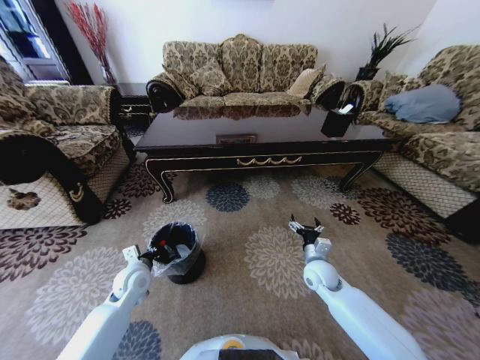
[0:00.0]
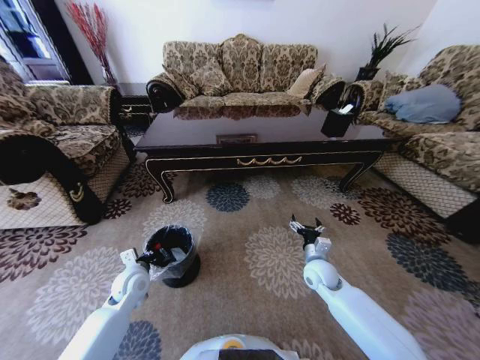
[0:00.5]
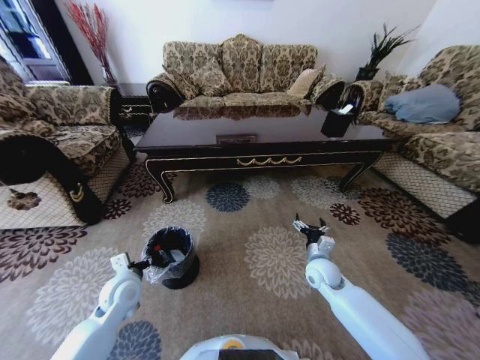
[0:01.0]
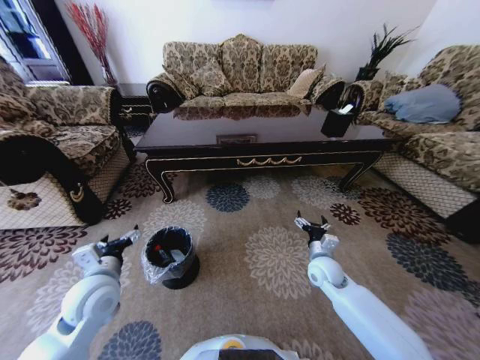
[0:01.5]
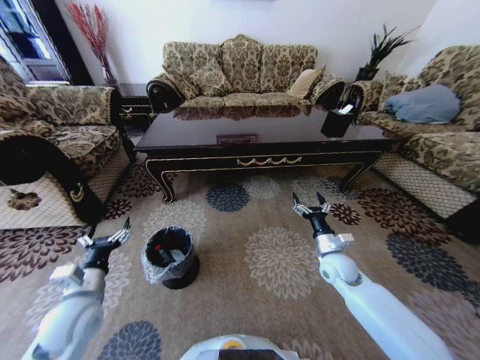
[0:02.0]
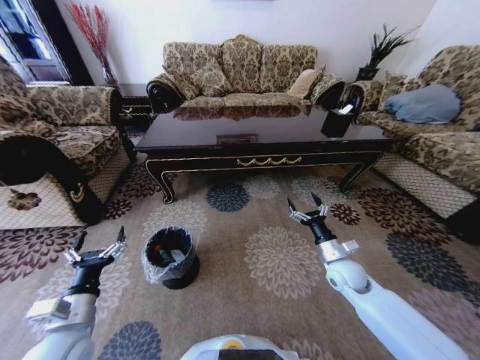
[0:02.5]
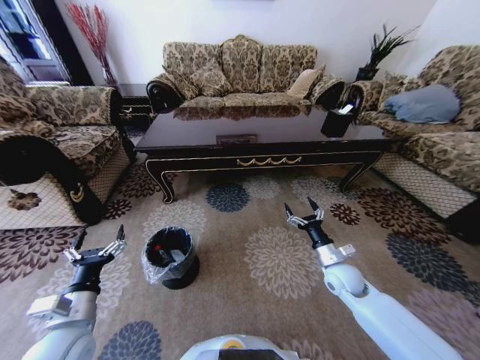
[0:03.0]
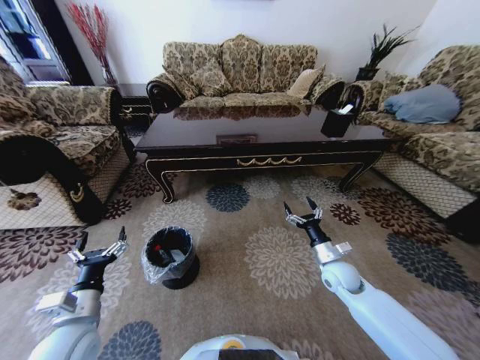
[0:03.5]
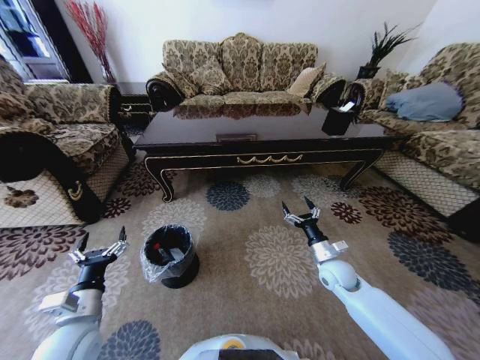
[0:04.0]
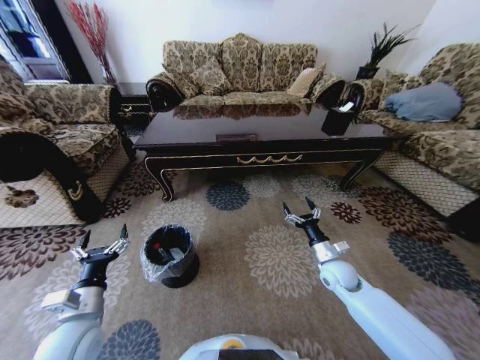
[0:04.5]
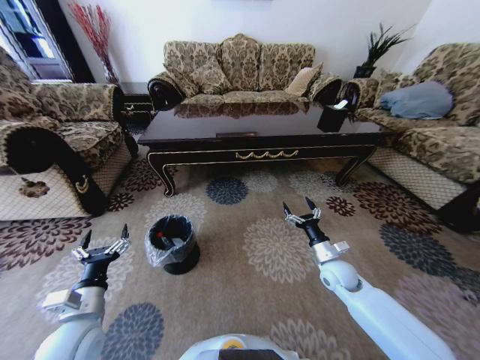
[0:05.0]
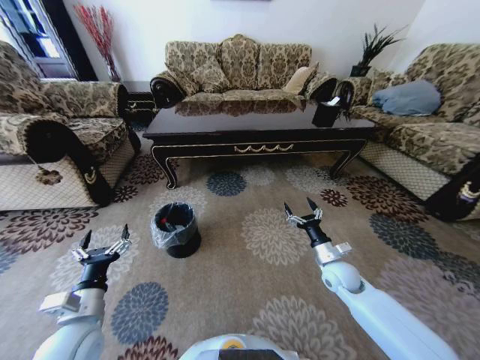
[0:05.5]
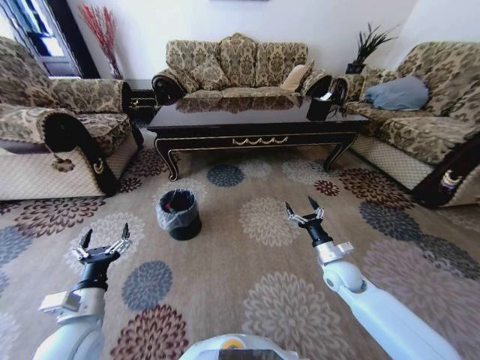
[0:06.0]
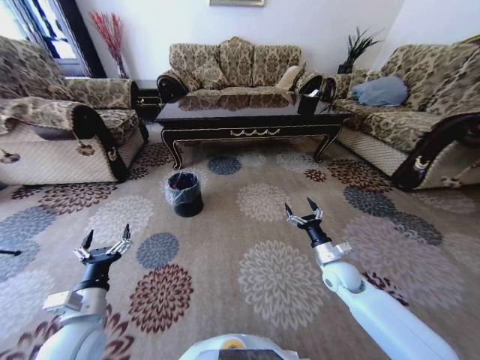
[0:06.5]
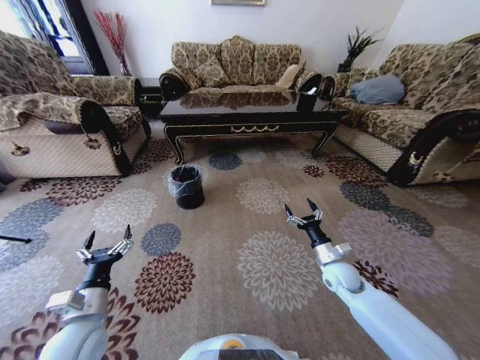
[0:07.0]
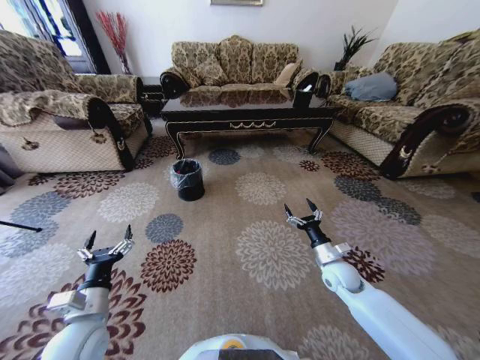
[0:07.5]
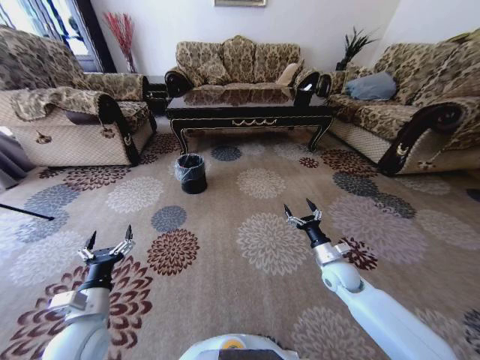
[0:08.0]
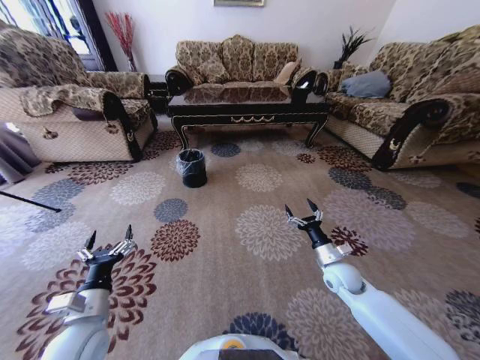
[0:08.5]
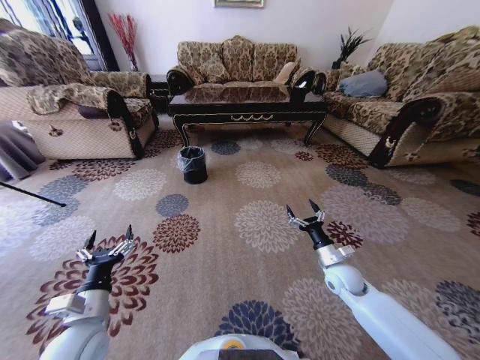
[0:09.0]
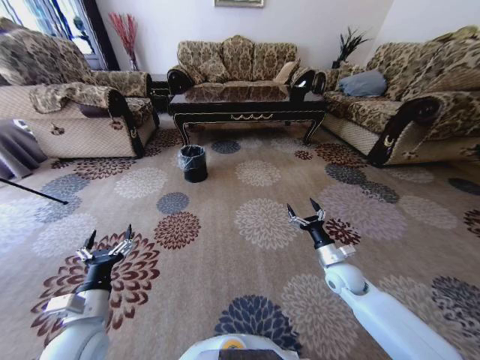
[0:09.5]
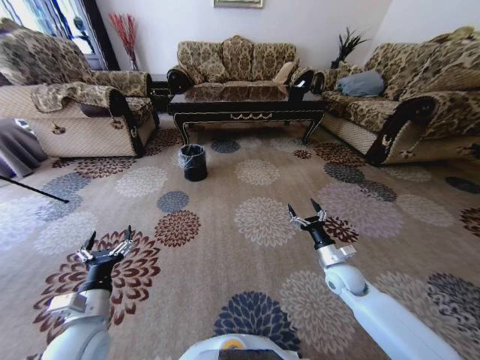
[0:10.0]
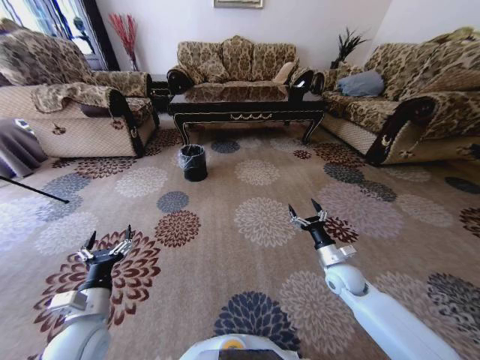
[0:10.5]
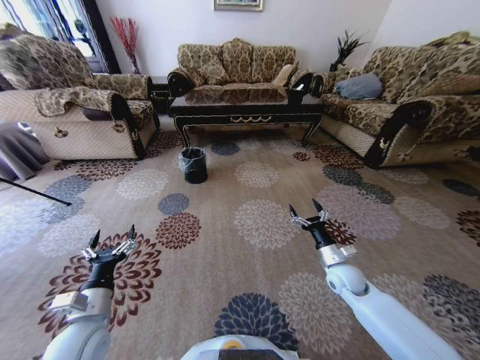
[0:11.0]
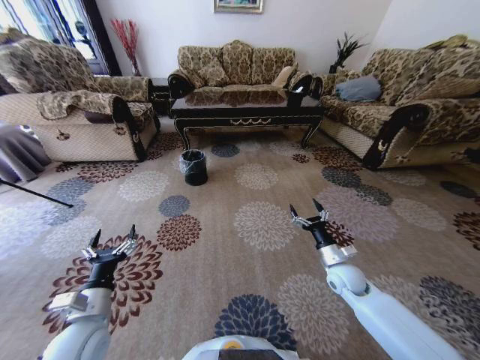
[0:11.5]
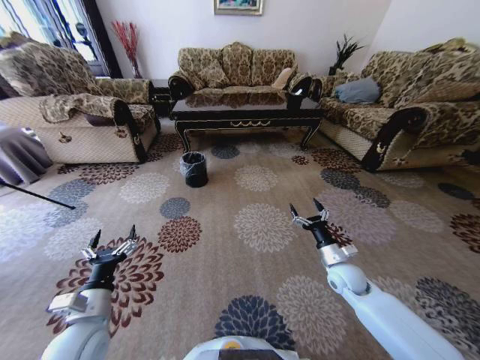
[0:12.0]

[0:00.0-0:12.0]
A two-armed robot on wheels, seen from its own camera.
Task of the whole recording: Move to the front of the table and pick up the trash from the floor, then place it into the trash bin.
0:00.0 to 0:02.0: The left gripper shifts about 15 cm backward, upward and to the left, and opens, while the right gripper shifts by roughly 5 cm.
0:02.0 to 0:04.0: The grippers make only small movements.

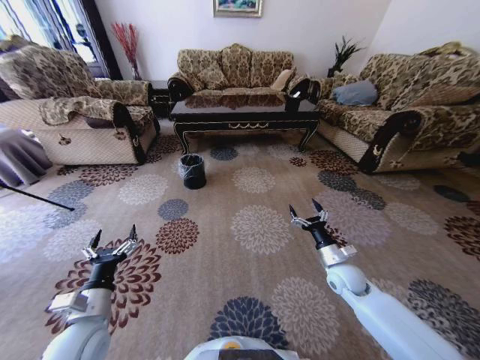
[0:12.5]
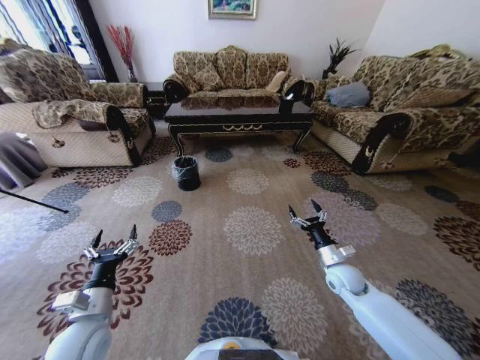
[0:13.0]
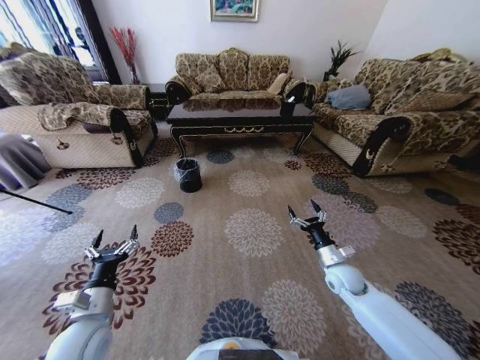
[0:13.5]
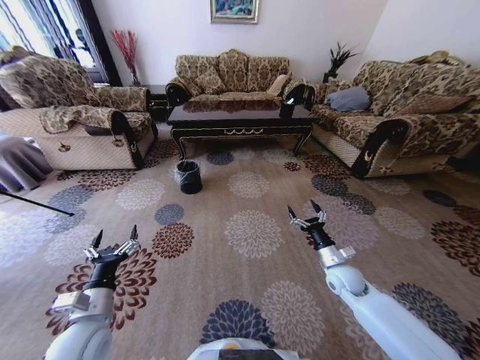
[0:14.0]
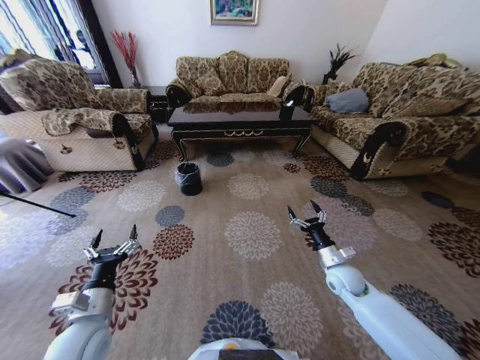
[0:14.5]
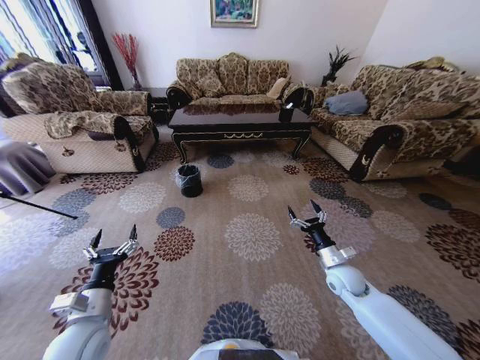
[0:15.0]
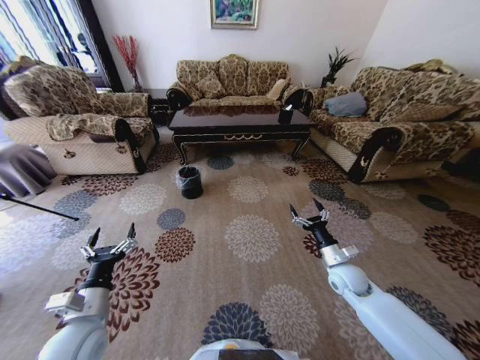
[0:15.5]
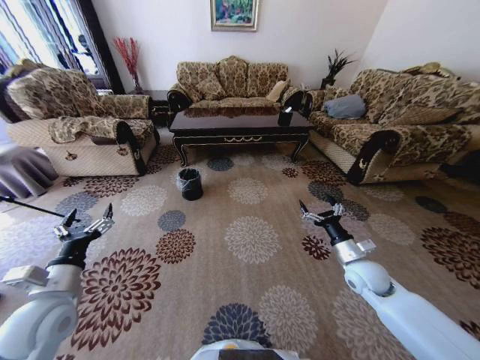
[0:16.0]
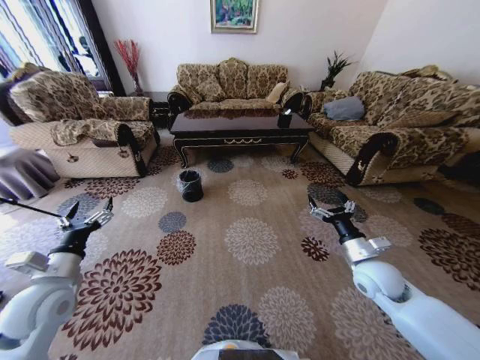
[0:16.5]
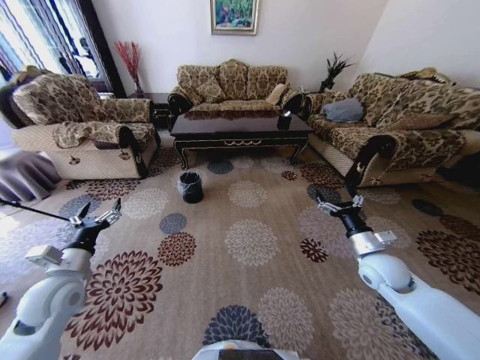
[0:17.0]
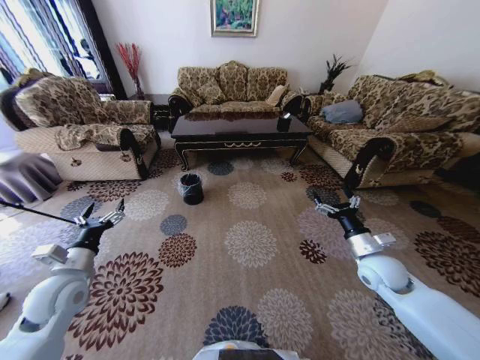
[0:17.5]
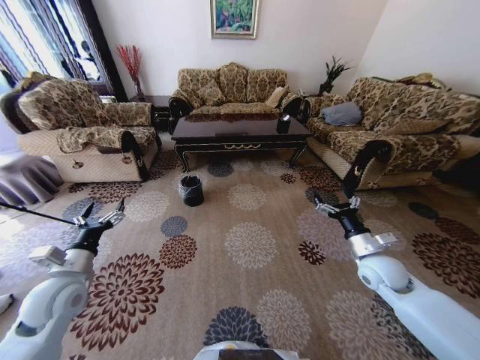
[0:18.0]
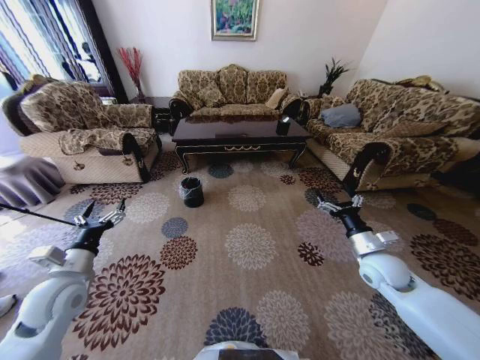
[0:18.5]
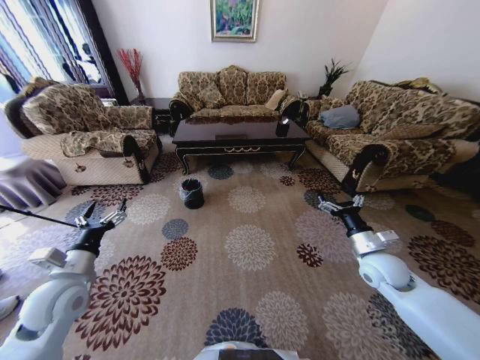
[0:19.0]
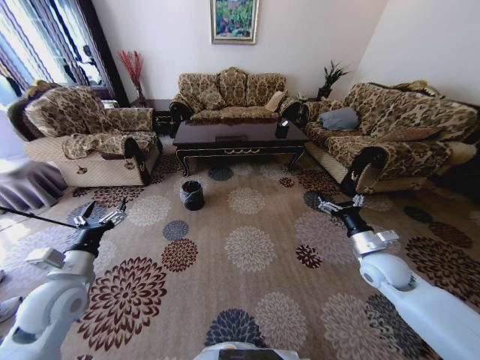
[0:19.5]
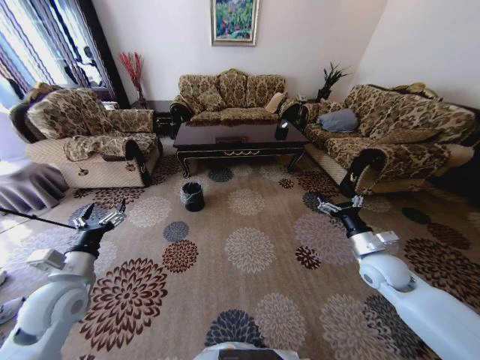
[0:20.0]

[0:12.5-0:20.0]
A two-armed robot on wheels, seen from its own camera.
Task of the whole recording: Move to the front of the table and pick up the trash from the floor, then place it into the trash bin.
0:14.5 to 0:16.5: The right gripper heads upward, covering roughly 10 cm. The left gripper goes about 10 cm to the left, upward and forward.

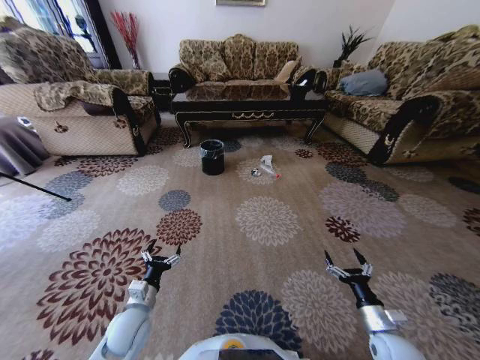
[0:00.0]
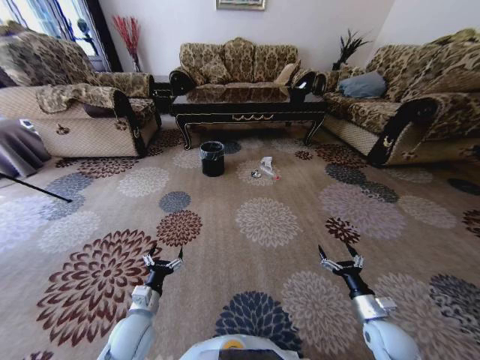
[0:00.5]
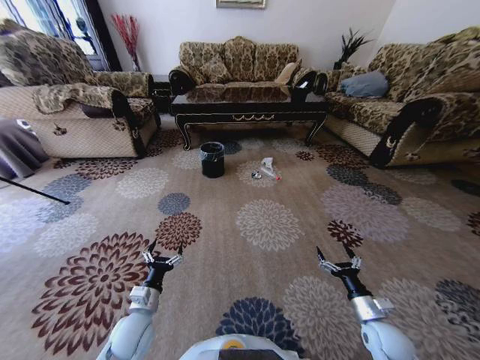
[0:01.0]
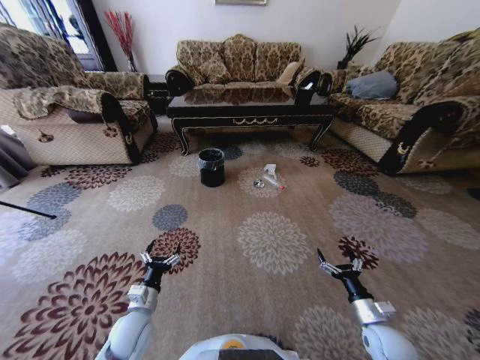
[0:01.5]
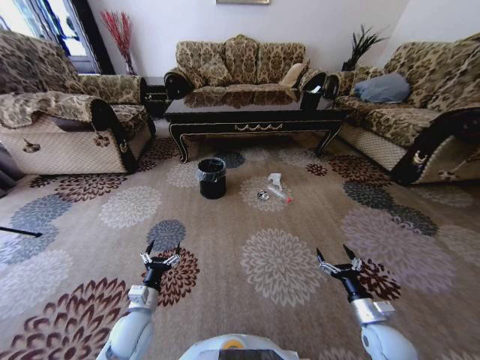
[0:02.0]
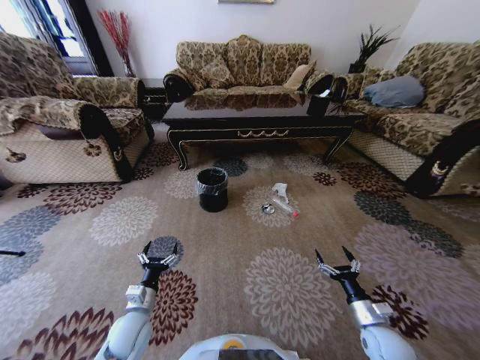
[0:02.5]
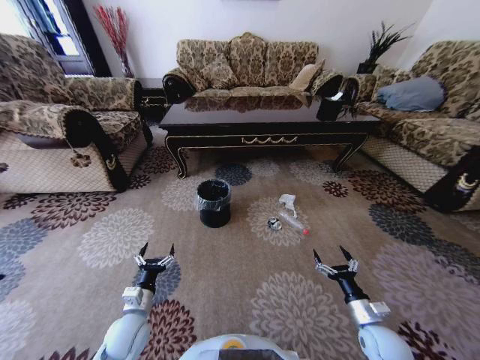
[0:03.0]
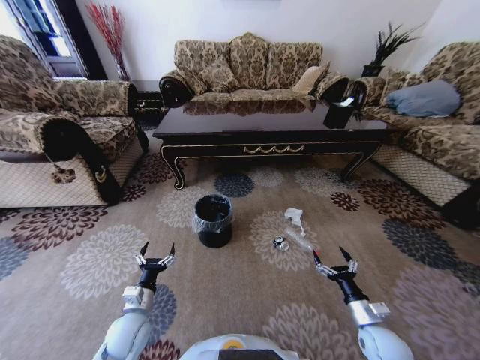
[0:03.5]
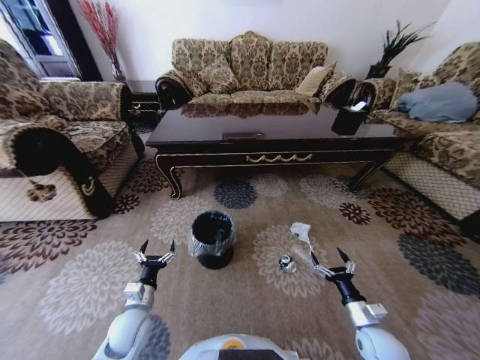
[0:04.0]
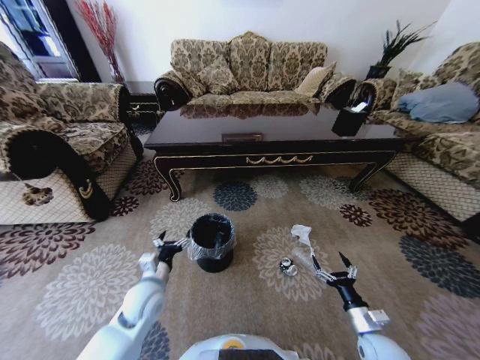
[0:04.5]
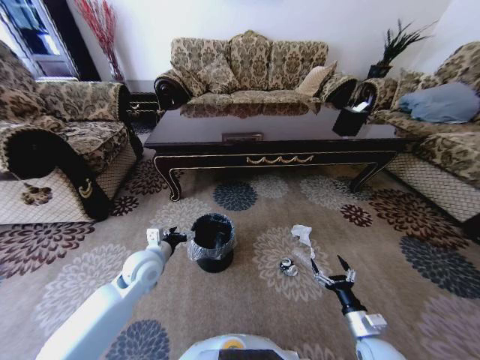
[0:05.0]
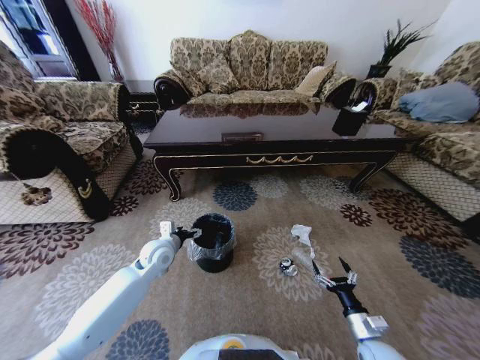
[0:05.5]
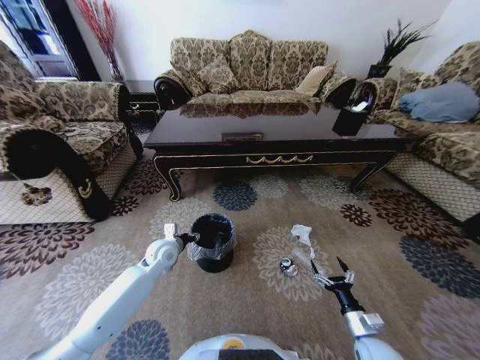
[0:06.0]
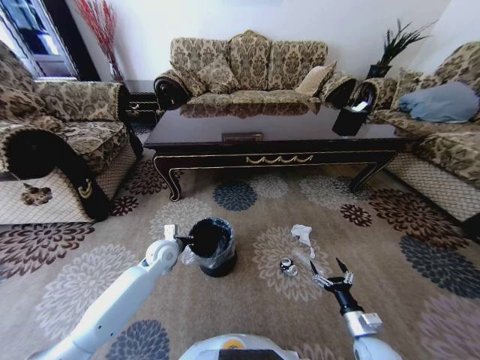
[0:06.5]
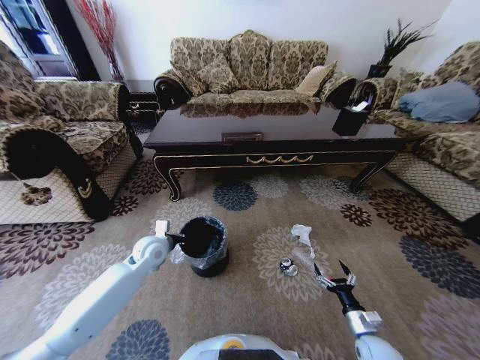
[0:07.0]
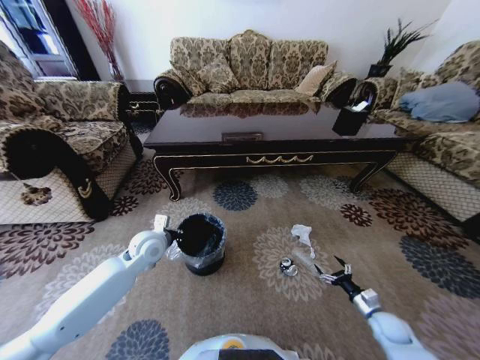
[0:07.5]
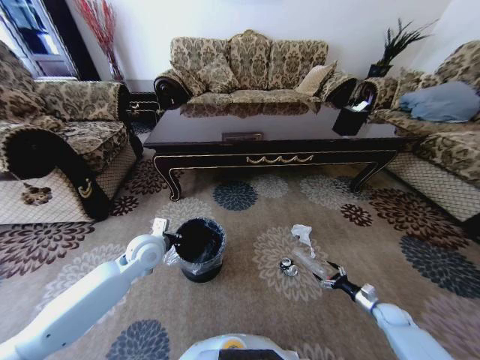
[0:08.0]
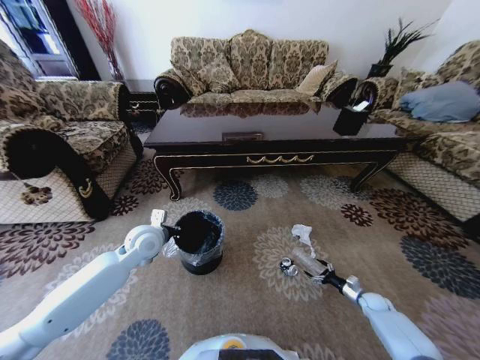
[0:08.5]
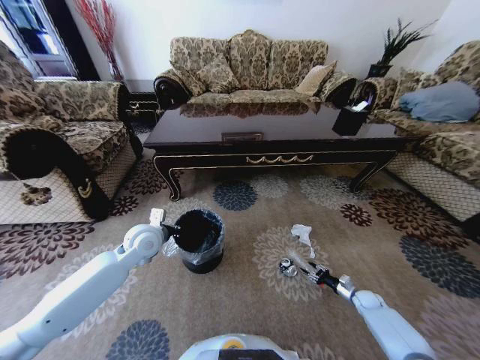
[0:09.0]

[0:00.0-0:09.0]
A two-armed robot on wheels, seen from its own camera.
Task of the whole recording: Move to the front of the table and pick up the trash from the floor, then place it into the trash bin.
0:02.0 to 0:04.5: The left gripper moves upward and forward, approximately 10 cm.
0:04.5 to 0:07.0: The left gripper travels forward by roughly 15 cm, and closes; the right gripper is displaced downward by about 5 cm.
0:07.0 to 0:09.0: The right gripper shifts some 20 cm forward, to the right and downward, and closes up; the left gripper goes approximately 5 cm upward.
